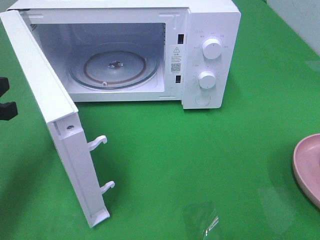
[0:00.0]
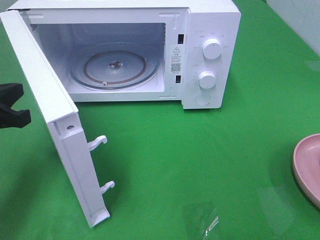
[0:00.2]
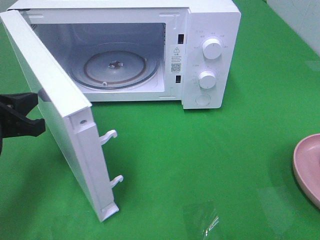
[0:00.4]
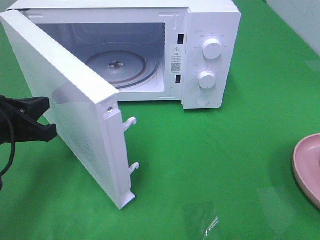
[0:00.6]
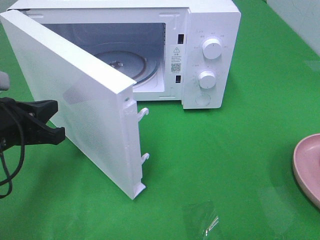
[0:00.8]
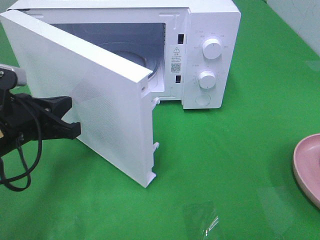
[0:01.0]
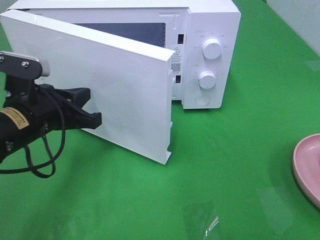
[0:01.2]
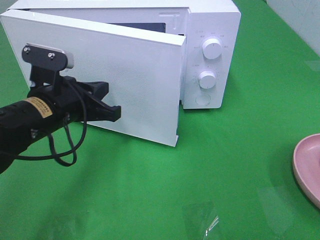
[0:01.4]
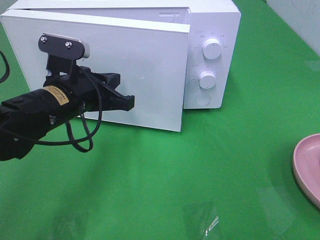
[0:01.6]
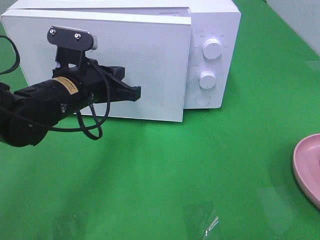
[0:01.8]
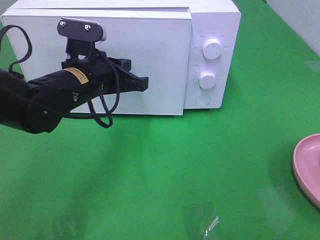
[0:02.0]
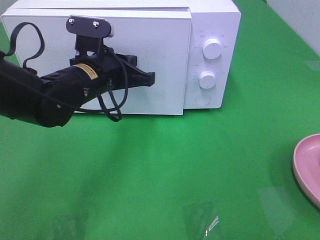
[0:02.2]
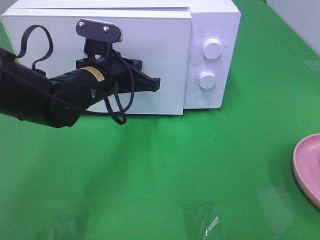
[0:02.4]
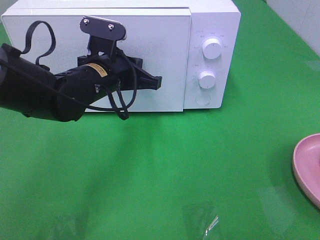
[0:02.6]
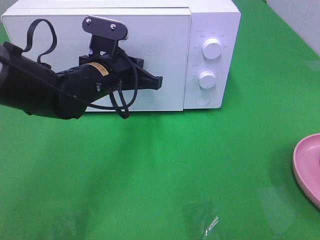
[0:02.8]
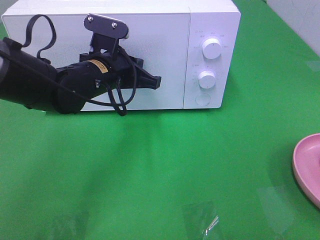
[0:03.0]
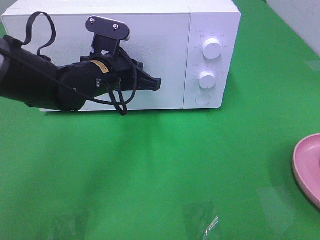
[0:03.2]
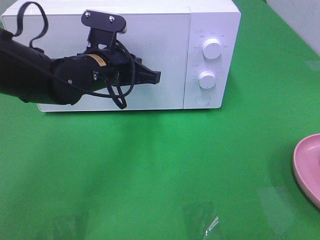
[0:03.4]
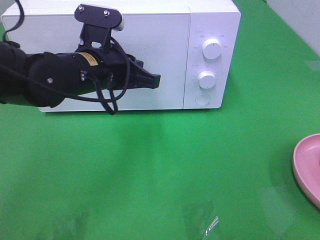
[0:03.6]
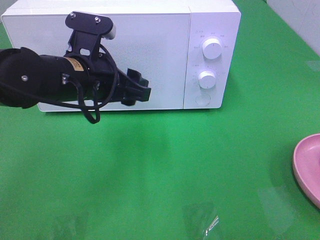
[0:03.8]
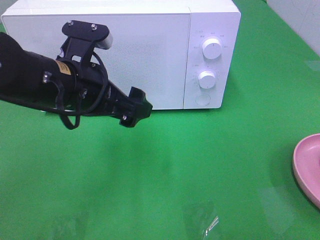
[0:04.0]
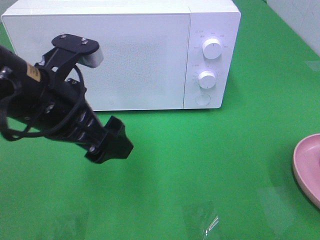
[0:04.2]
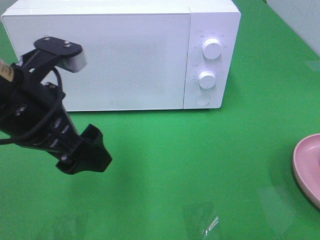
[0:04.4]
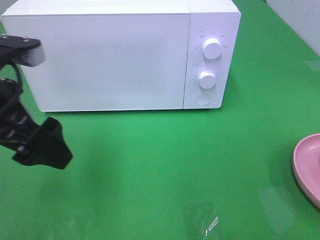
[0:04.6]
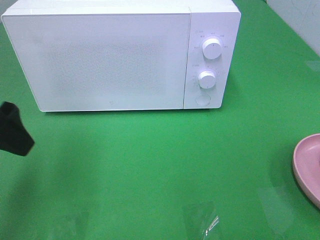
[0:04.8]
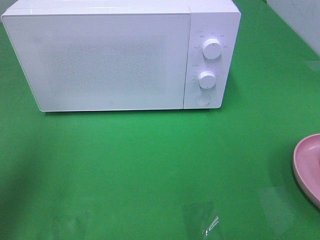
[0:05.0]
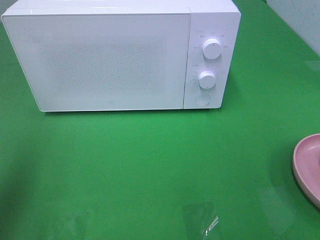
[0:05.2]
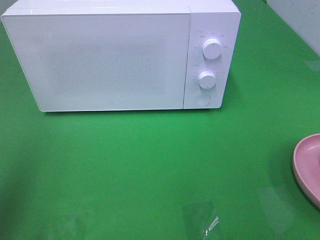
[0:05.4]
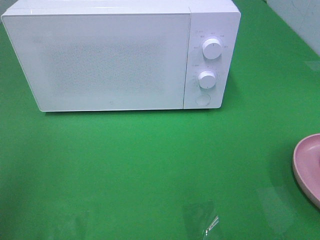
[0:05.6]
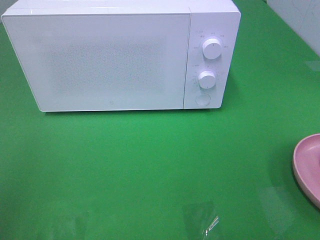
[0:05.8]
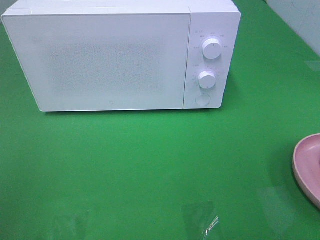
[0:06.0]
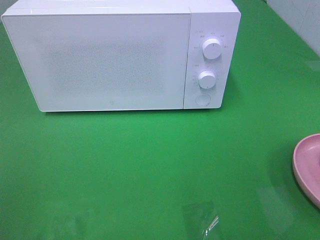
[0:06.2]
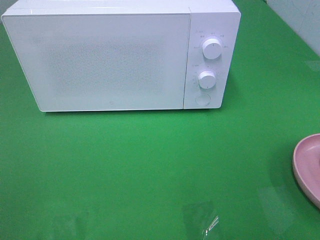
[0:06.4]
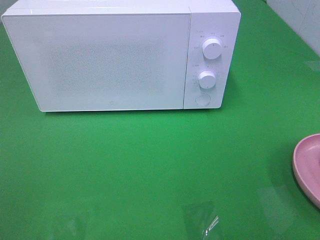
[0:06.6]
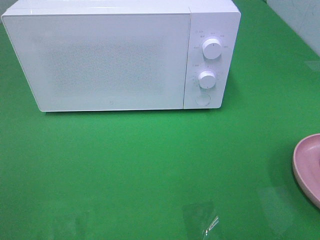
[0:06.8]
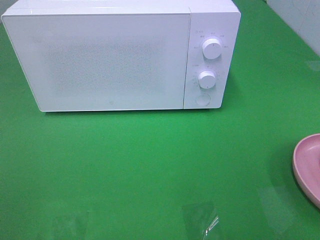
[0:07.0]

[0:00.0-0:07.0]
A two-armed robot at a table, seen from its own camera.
Task of the whole recording: Heat the burger.
Step, 0:00.0 to 0:02.8: Left hand: close the microwave door.
0:00.0 to 0:01.4: The left gripper shifts approximately 15 cm to the right.
0:01.4 to 0:02.8: The left gripper heads forward and to the right, covering roughly 10 cm.
0:02.8 to 0:04.2: The left gripper heads backward and upward, covering approximately 15 cm, and opens.
0:04.2 to 0:05.6: The left gripper moves to the left, backward and upward, approximately 25 cm.

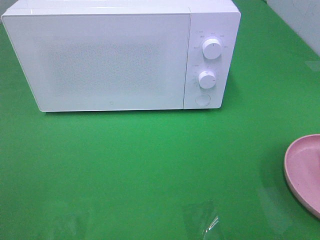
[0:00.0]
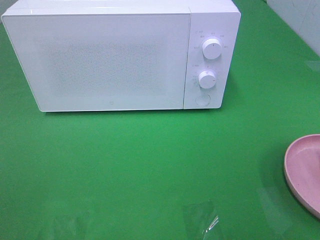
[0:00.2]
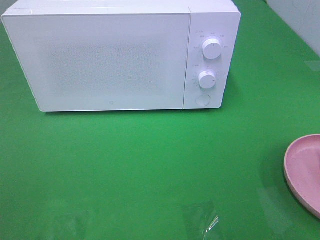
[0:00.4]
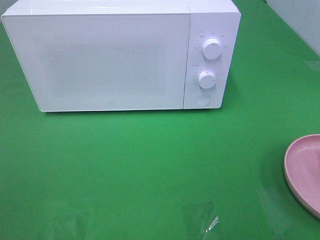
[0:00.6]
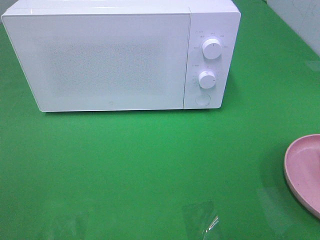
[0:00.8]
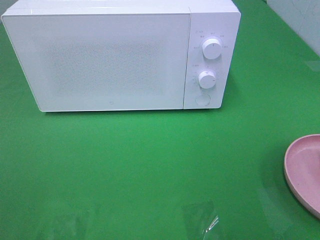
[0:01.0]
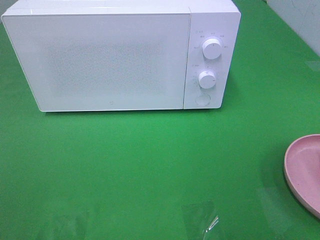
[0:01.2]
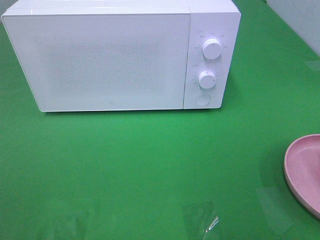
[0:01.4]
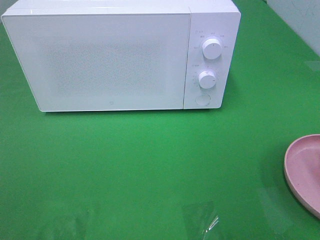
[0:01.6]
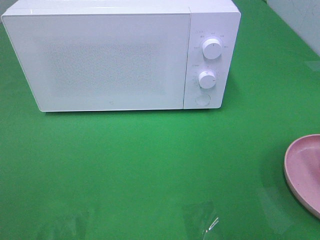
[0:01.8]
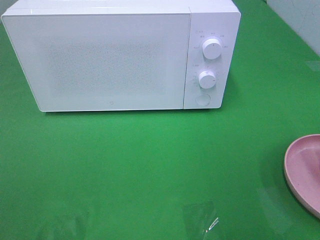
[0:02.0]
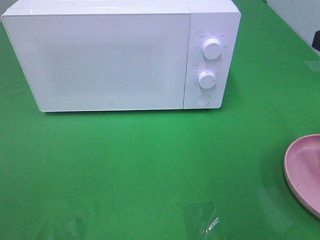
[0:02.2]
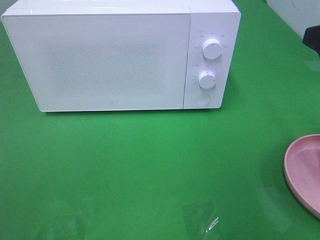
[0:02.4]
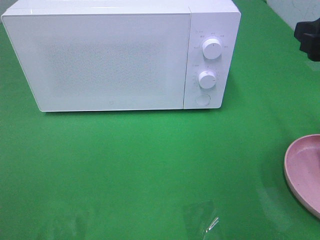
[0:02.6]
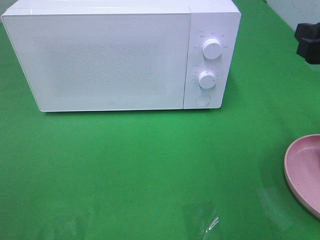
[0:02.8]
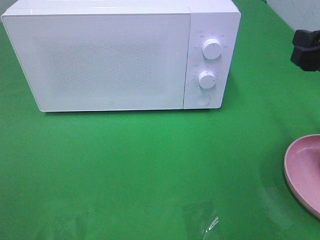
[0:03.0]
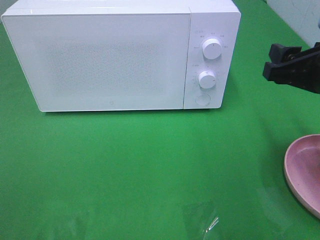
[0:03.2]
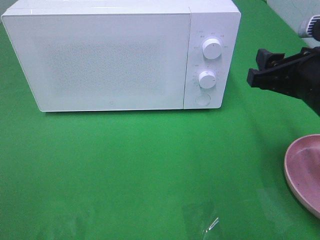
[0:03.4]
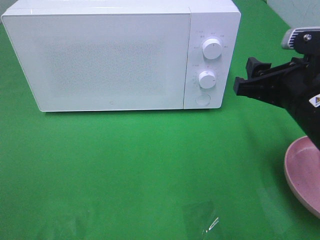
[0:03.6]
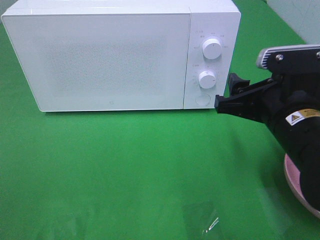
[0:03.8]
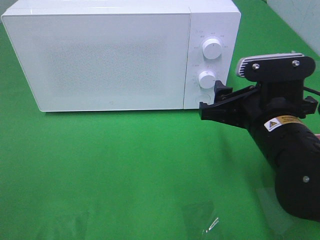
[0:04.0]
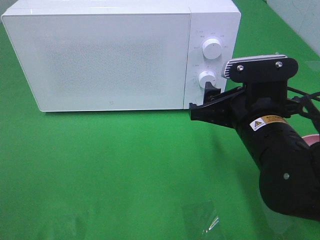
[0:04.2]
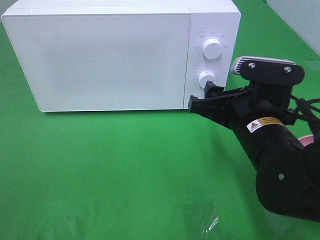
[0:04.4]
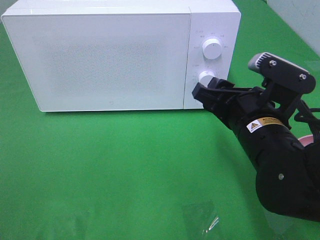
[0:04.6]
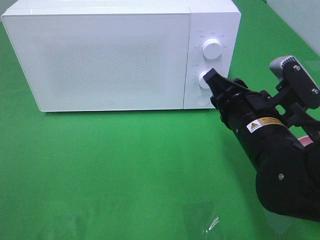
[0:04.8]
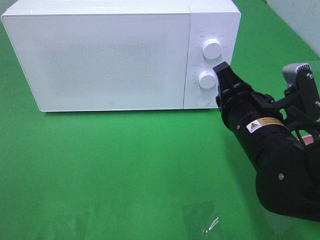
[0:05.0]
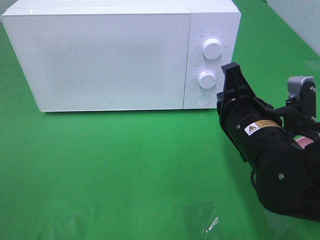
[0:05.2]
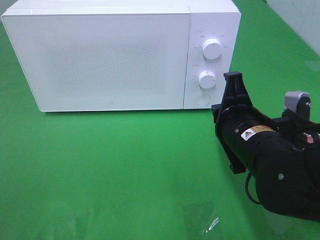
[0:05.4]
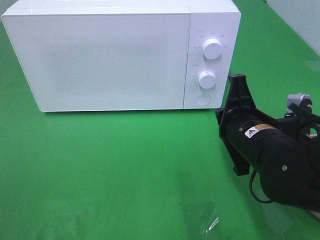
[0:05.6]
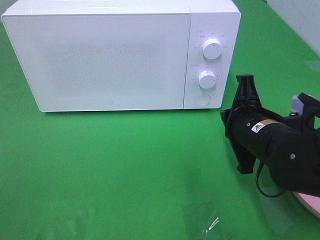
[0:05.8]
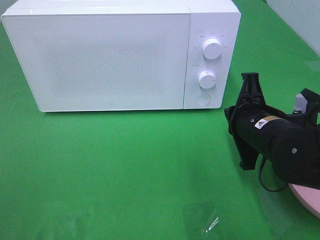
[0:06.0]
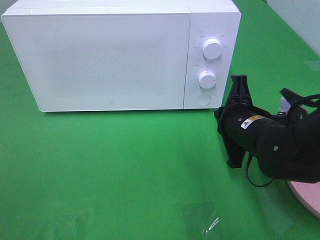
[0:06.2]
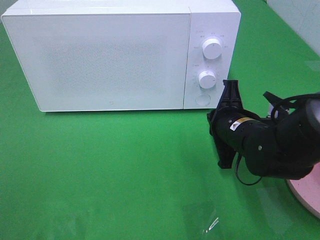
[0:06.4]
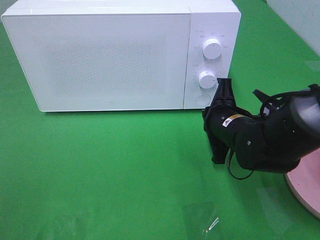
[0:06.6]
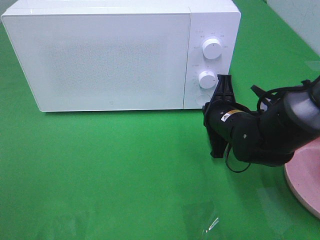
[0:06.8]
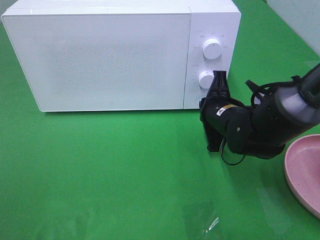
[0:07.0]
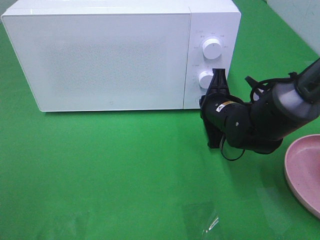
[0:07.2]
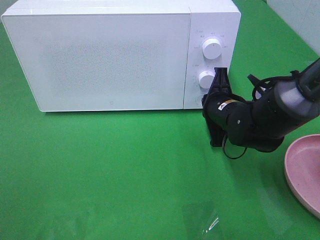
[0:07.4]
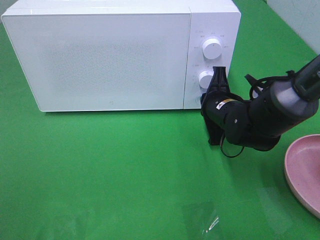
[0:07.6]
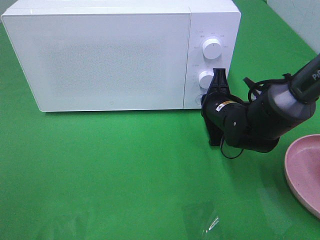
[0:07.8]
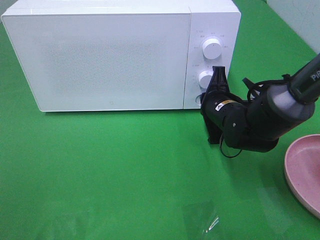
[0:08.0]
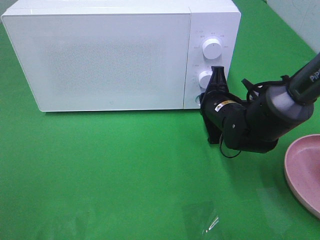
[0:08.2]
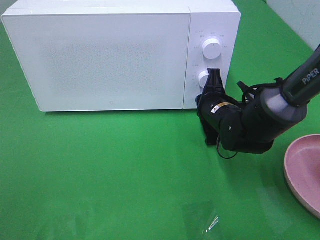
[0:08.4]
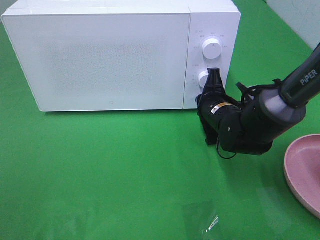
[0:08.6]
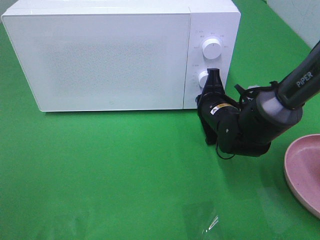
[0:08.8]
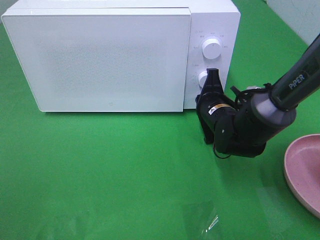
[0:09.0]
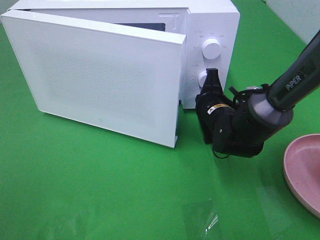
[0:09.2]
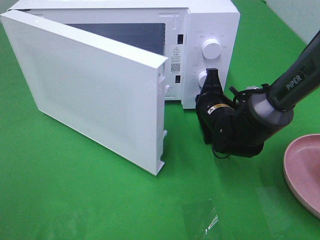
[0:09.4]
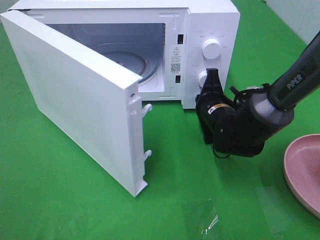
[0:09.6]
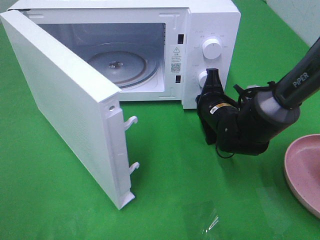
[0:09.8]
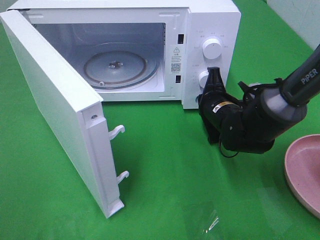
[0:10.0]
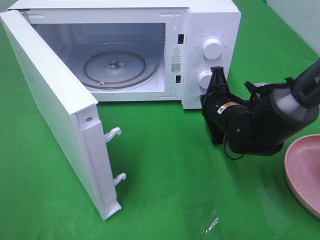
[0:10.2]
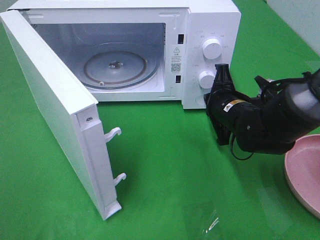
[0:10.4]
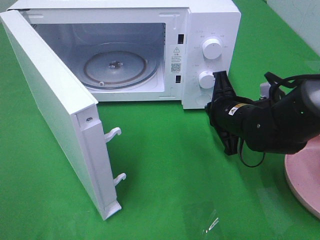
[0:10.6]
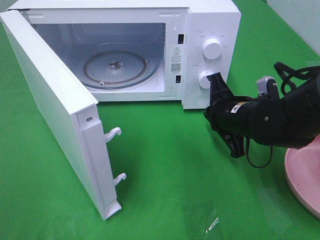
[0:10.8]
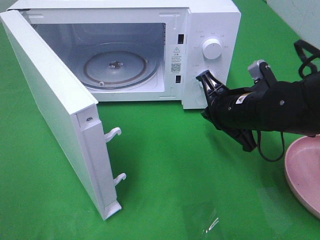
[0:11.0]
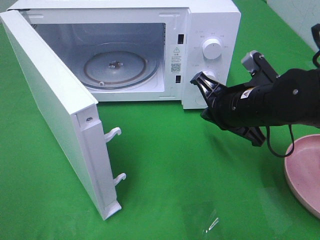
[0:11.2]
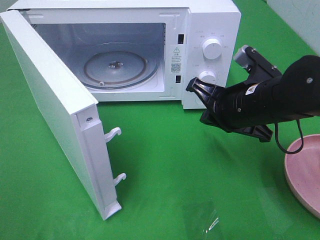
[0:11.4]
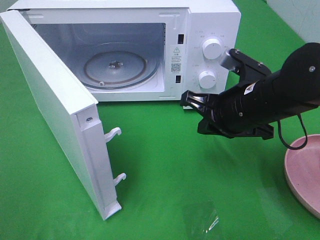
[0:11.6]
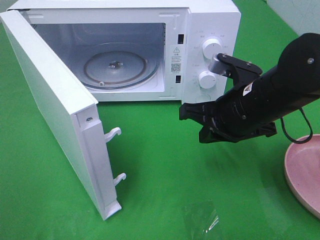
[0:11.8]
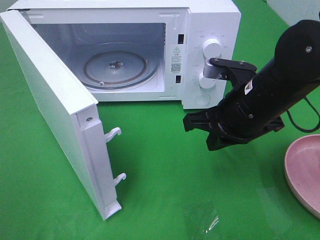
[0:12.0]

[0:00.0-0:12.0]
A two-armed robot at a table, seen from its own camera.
Task of the whole recording: Heat the burger.
Step, 0:00.0 to 0:10.2: Right hand: press the switch.
0:01.6 to 0:03.0: The right gripper heads forward and downward, covering about 15 cm.
0:03.0 to 0:04.4: The right gripper travels to the left and downward by some 15 cm.
0:04.4 to 0:06.0: The right gripper closes up.
0:06.0 to 0:07.6: The right gripper shifts approximately 10 cm forward.
0:07.6 to 0:09.0: There are only small adjustments of the grippers.
0:10.4 to 0:12.0: The right gripper shifts some 10 cm upward and backward.

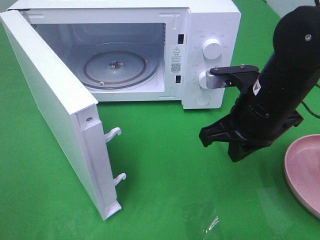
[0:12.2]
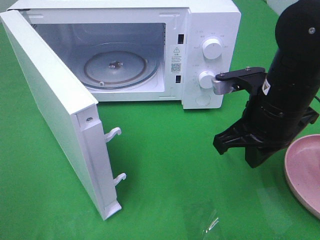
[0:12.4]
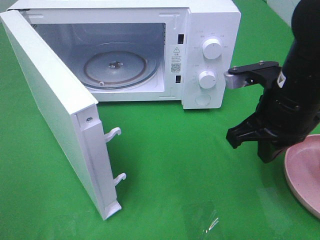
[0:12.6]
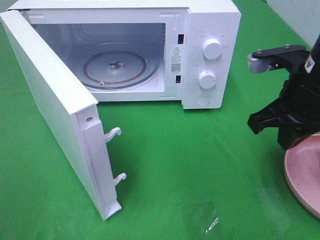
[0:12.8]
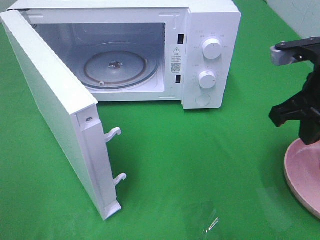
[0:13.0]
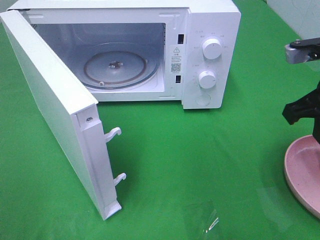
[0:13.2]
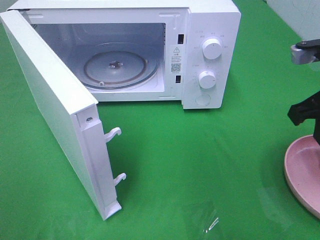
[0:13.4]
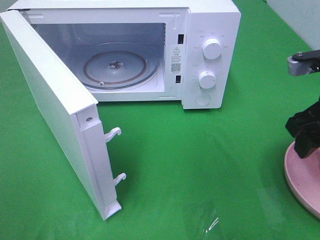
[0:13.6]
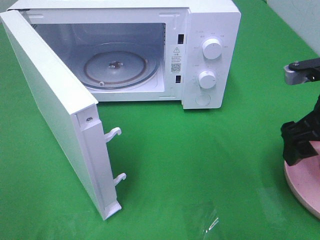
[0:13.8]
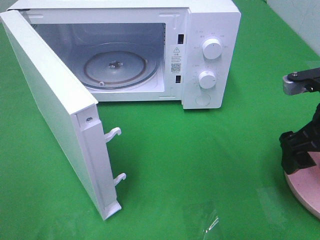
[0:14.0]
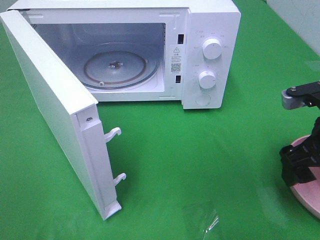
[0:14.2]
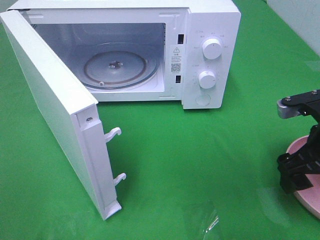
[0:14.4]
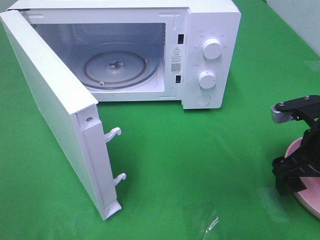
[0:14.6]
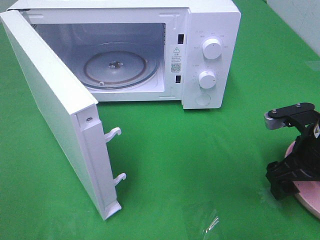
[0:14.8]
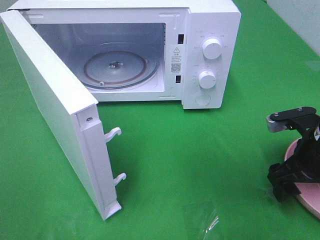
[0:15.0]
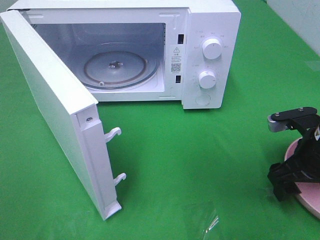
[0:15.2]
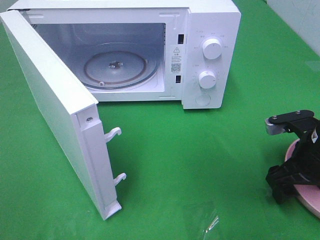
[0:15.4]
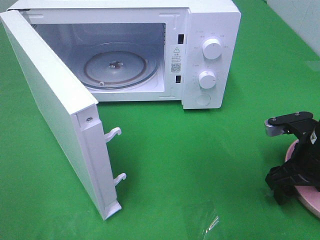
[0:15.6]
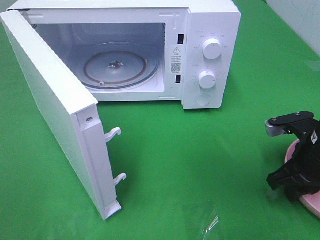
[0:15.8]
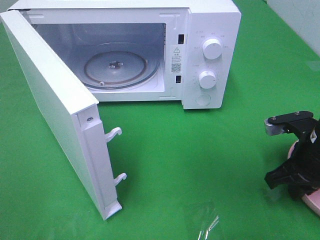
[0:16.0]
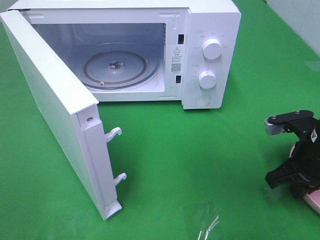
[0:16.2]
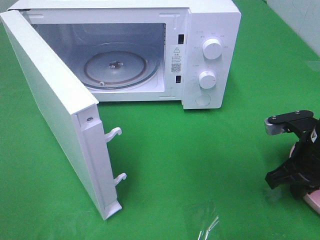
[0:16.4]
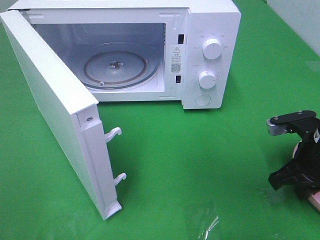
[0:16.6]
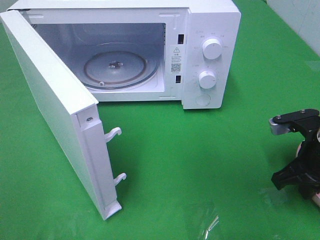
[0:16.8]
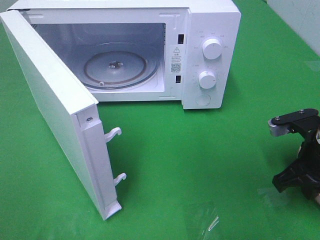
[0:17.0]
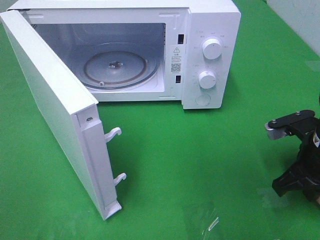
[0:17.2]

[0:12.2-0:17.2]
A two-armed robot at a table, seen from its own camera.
Task of the whole recording: Heat the burger.
Step, 0:12.2 to 0:17.0: Right hand: grab the plate with the hamburger.
0:12.2 to 0:13.8: The right gripper goes some 10 cm to the right, and opens.
0:13.8 to 0:15.6: The right gripper shifts roughly 10 cm downward.
0:15.6 to 0:17.2: The right gripper closes up.
